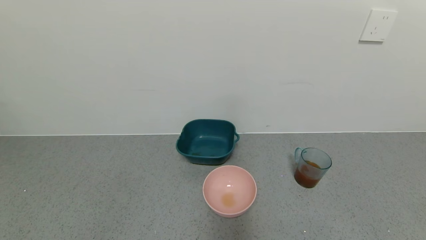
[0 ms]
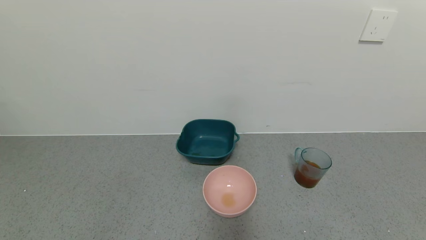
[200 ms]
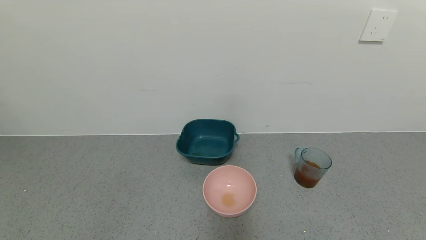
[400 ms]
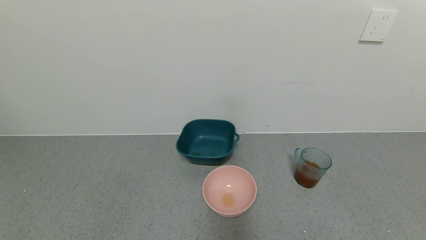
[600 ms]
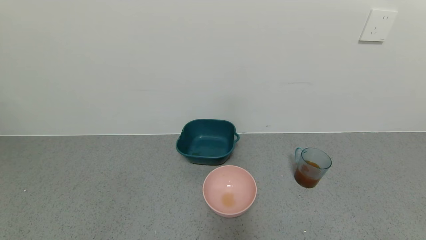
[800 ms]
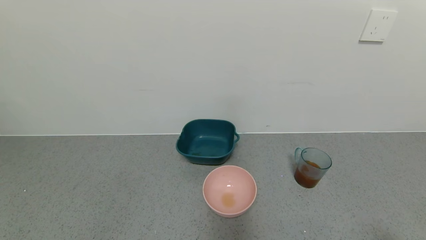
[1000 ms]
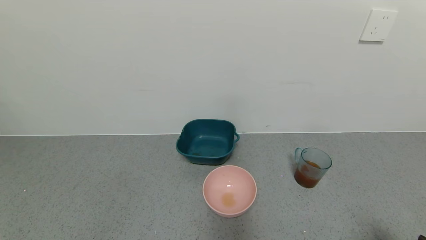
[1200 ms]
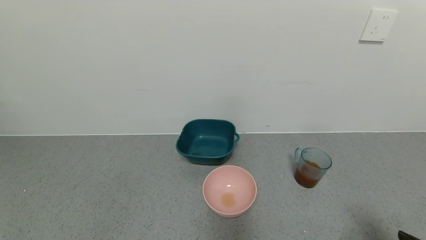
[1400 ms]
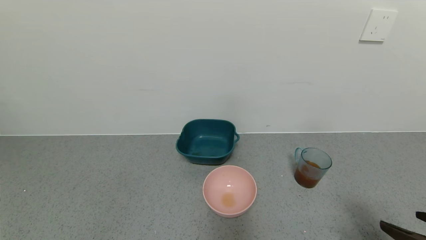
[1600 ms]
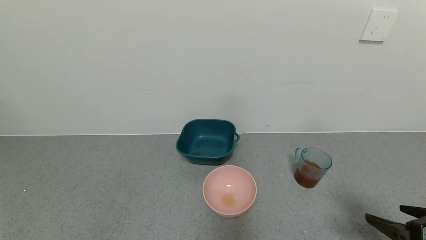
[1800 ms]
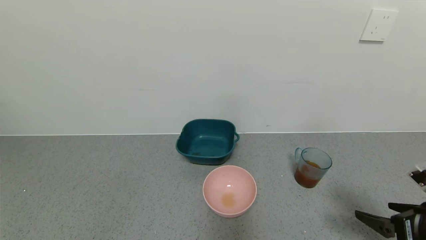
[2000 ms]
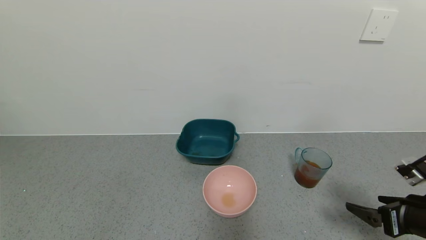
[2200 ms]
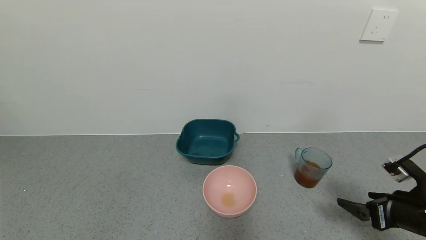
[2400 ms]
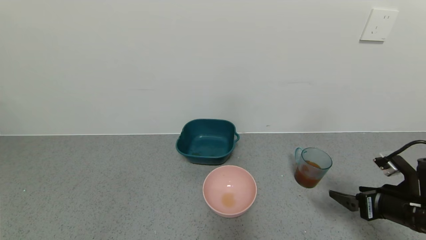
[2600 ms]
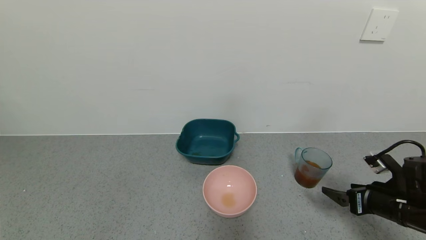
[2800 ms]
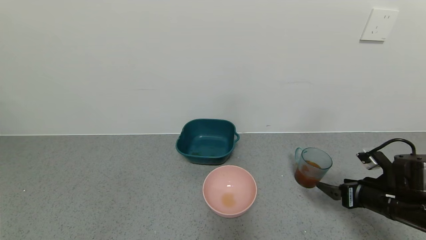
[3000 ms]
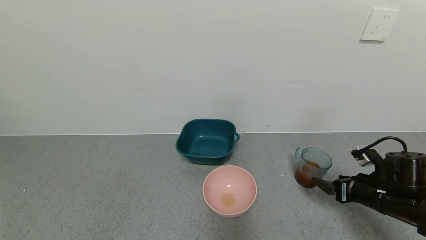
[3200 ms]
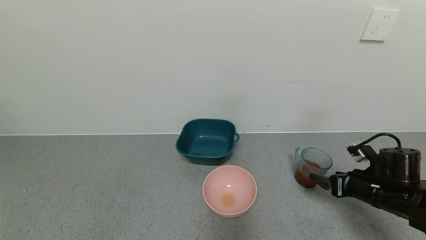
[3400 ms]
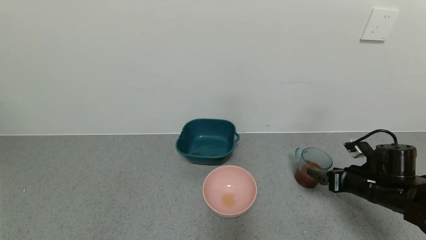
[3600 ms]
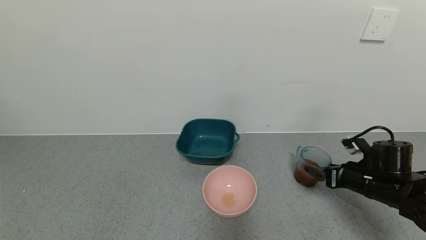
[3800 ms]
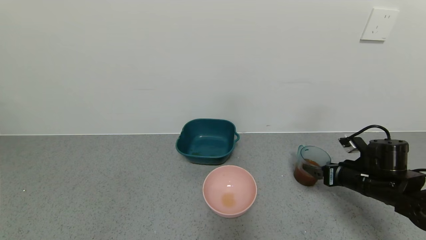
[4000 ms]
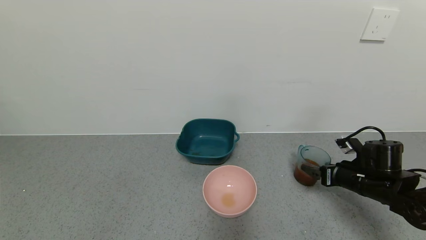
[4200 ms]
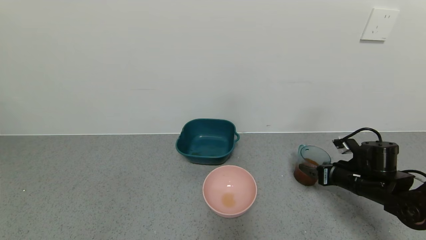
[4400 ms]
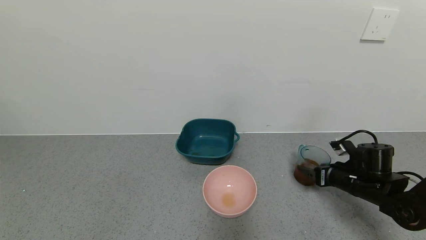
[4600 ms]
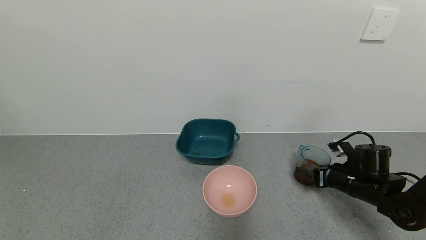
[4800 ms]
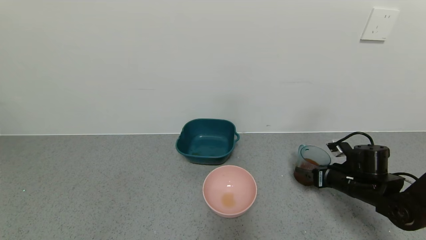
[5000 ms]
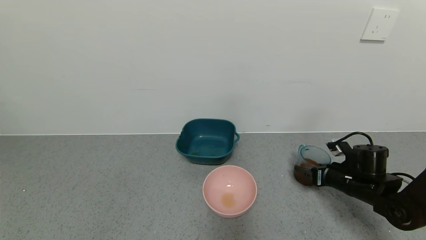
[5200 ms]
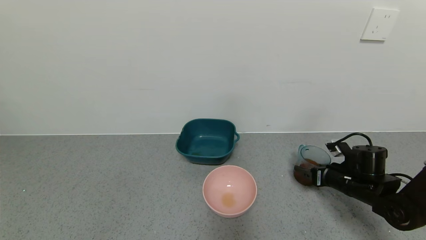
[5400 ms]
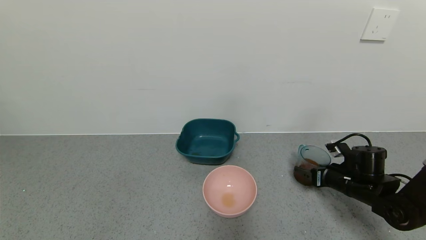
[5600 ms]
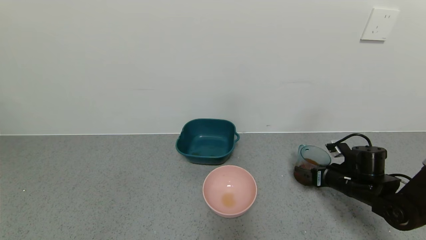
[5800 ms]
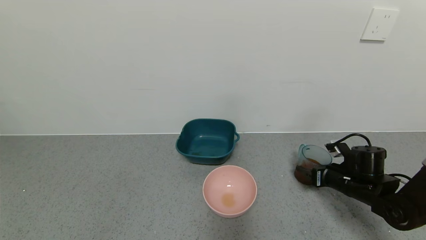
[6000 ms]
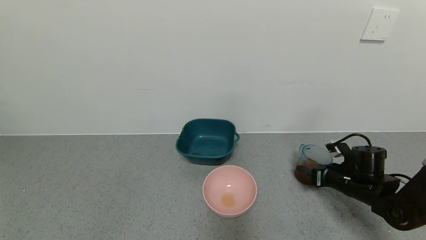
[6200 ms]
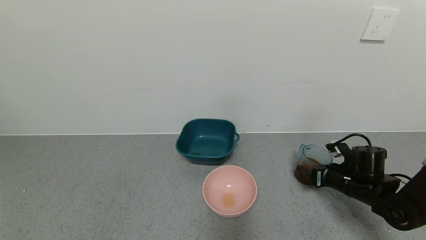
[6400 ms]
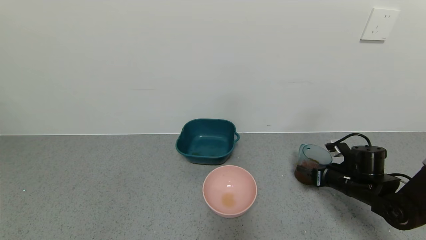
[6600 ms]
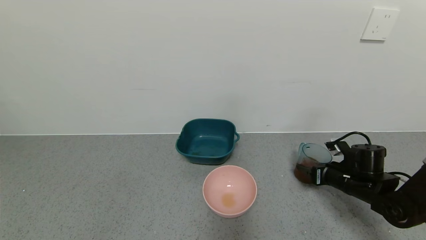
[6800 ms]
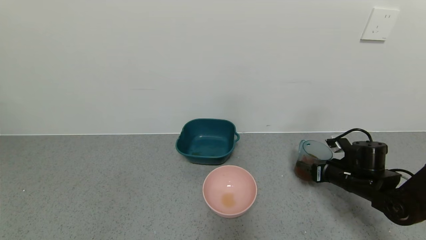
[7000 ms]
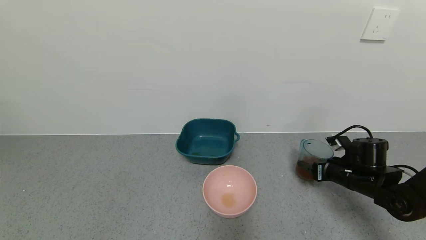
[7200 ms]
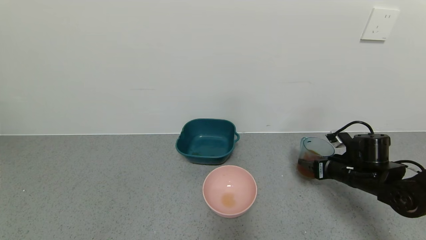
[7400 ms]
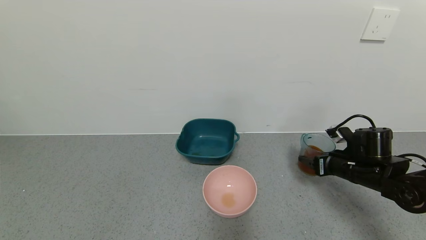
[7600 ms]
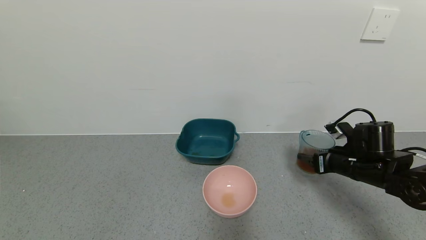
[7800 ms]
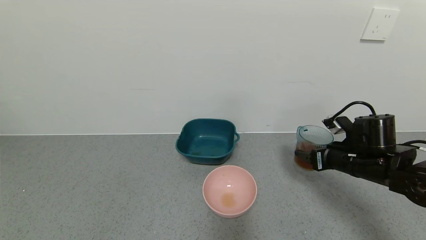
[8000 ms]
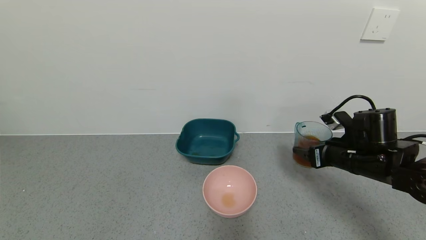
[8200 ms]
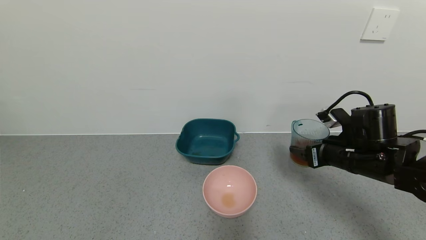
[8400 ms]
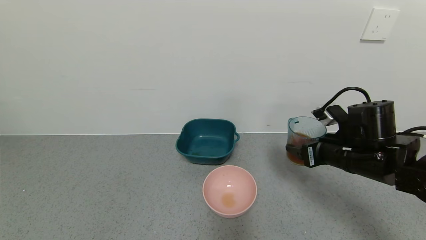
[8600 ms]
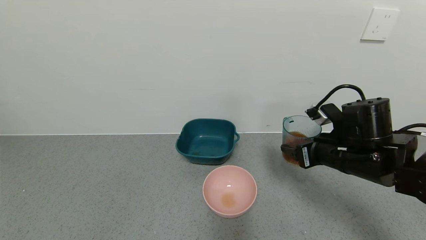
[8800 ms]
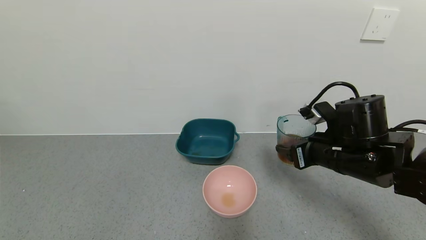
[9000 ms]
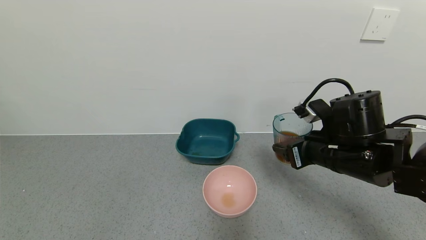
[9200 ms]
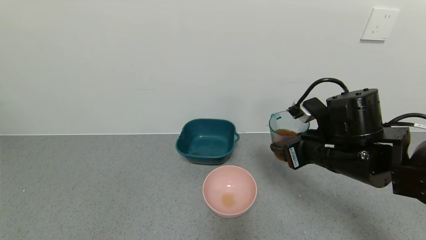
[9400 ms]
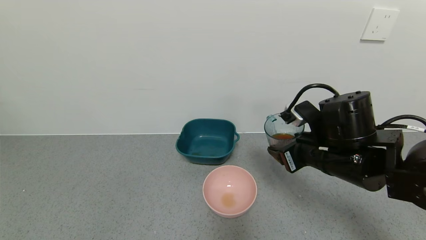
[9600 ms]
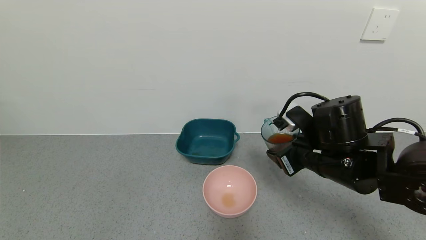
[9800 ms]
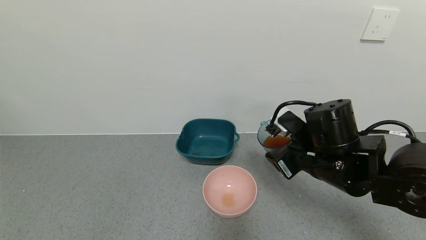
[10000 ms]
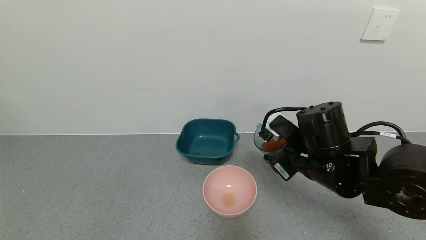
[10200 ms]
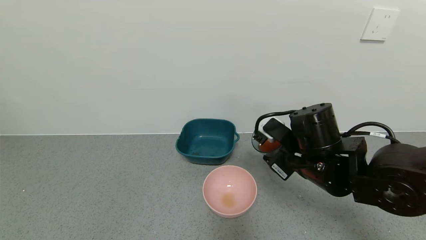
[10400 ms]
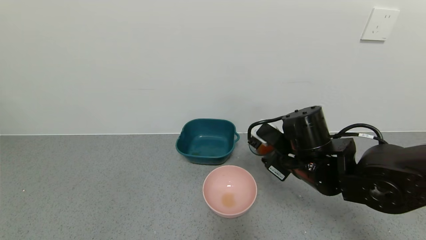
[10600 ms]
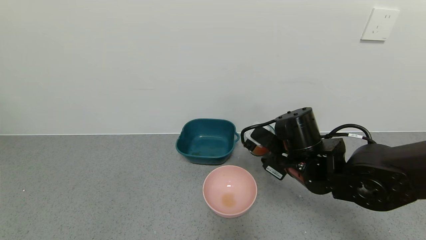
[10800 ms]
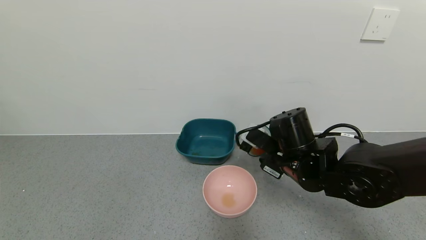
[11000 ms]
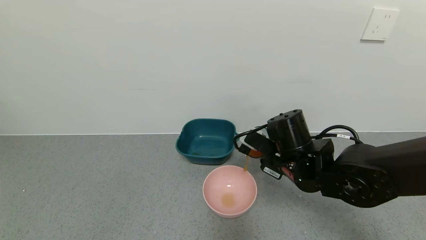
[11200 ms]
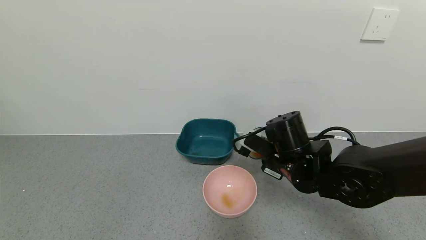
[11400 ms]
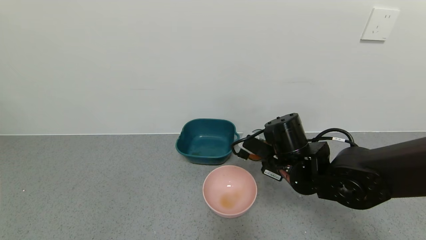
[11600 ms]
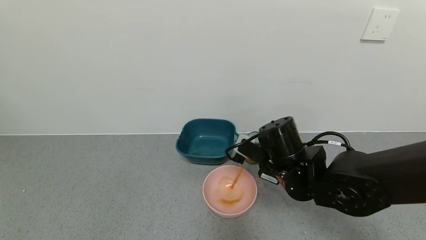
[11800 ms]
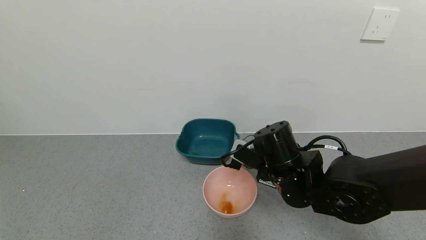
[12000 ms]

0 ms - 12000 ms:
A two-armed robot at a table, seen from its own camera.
Task of the whole recording: use a gripper to pick up the cup and pour the liquid into a bowl or tray.
Step, 0 ms - 7600 ms: Pick up blue cup filled with tea with right gripper.
0 ms - 1600 ms: Neither gripper changes place.
1600 ms - 3000 ms: The right gripper moves forward, some 10 cm.
3000 ms - 4400 ms: The right gripper is displaced forward by roughly 5 cm.
4400 ms - 6000 ms: The right gripper closes its fingers.
6000 ms - 7600 ms: The right gripper goes approximately 5 cm upward.
7600 ms - 9000 ms: The right gripper goes about 15 cm to the left and upward.
9000 ms - 10400 ms: The right gripper goes about 5 cm to the left.
10400 ms - 12000 ms: The right gripper ends up some 5 cm from where it was.

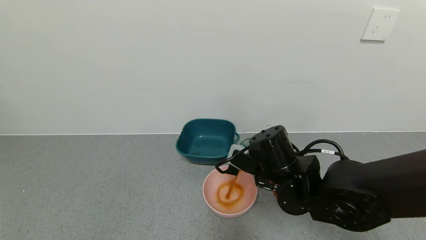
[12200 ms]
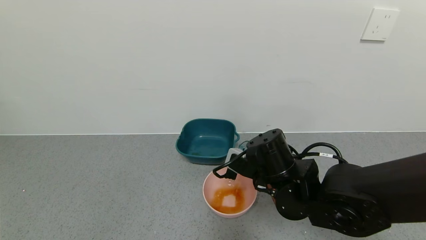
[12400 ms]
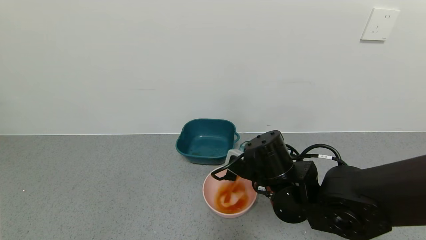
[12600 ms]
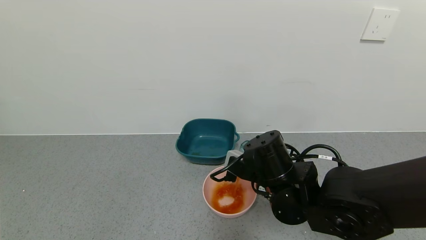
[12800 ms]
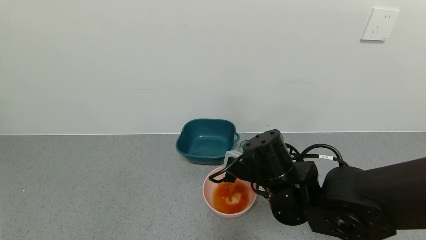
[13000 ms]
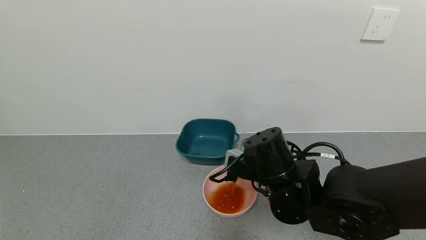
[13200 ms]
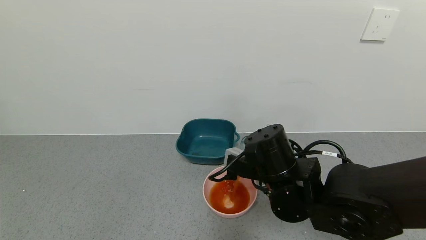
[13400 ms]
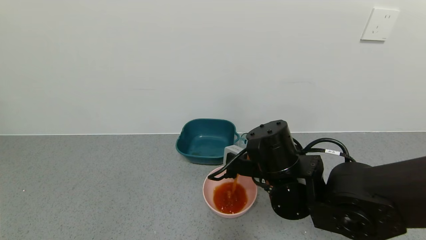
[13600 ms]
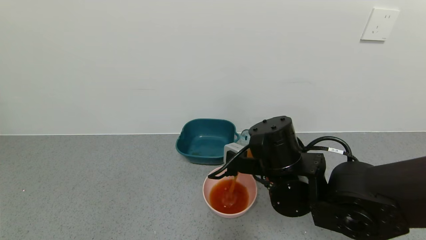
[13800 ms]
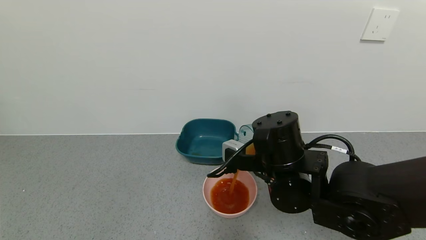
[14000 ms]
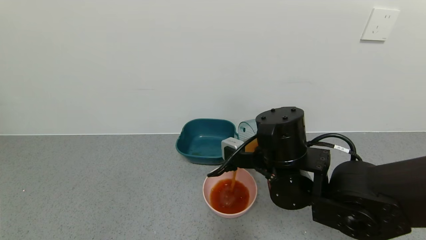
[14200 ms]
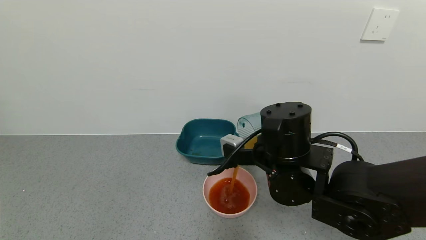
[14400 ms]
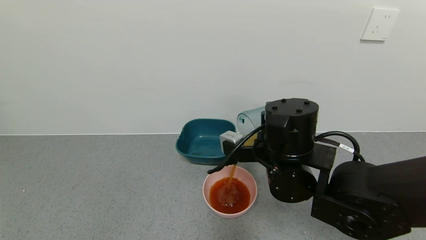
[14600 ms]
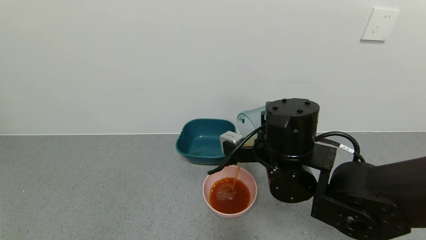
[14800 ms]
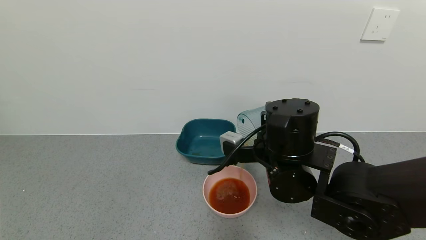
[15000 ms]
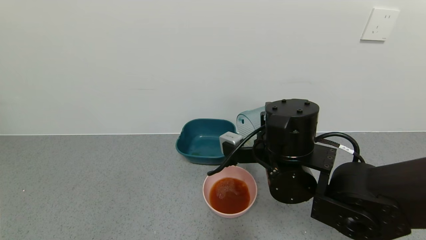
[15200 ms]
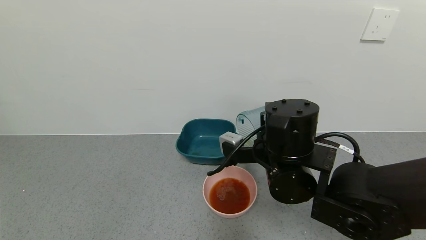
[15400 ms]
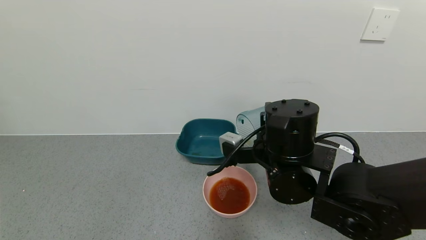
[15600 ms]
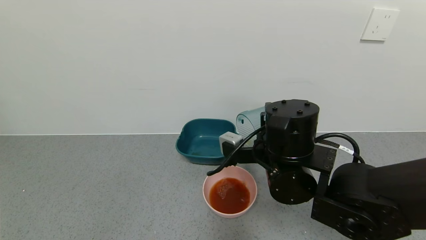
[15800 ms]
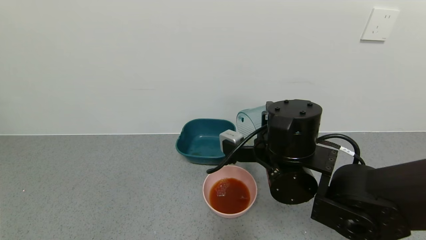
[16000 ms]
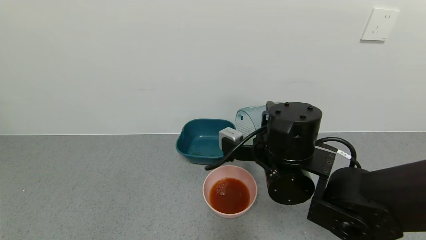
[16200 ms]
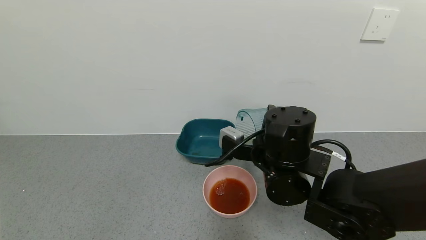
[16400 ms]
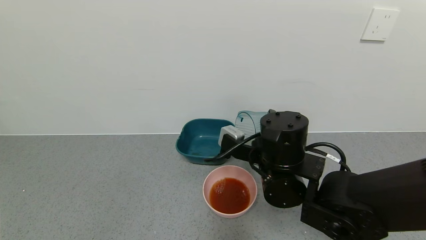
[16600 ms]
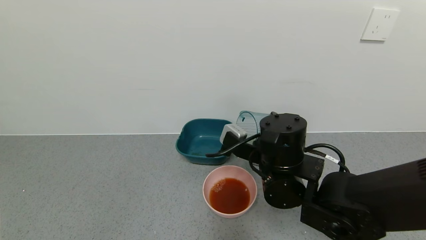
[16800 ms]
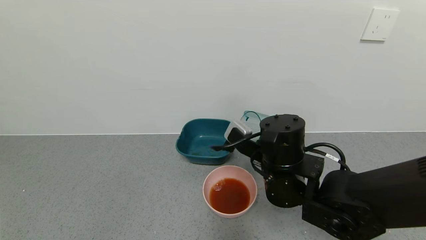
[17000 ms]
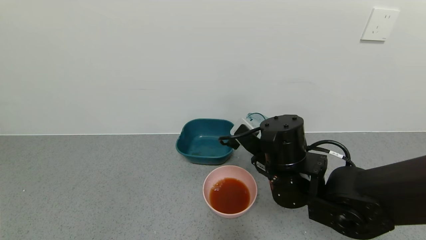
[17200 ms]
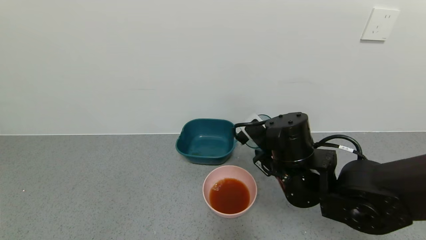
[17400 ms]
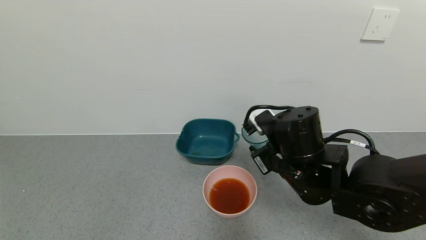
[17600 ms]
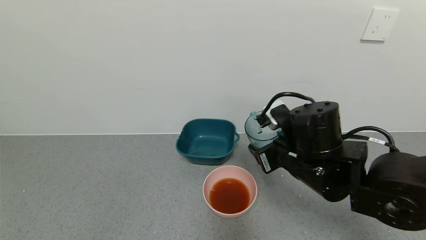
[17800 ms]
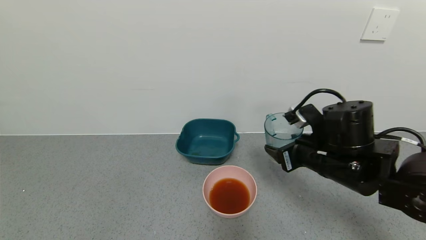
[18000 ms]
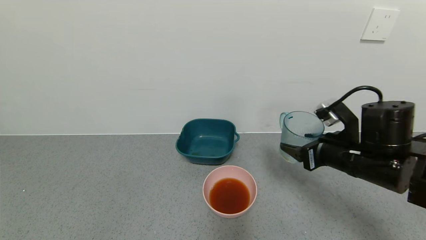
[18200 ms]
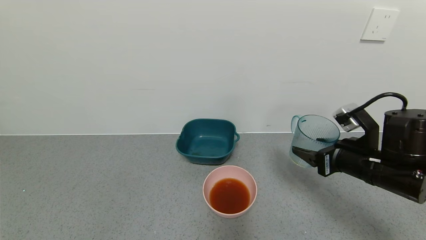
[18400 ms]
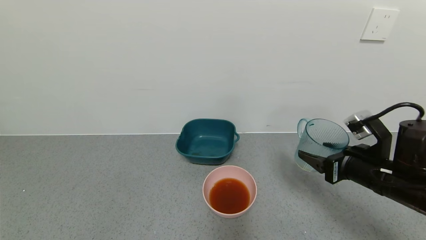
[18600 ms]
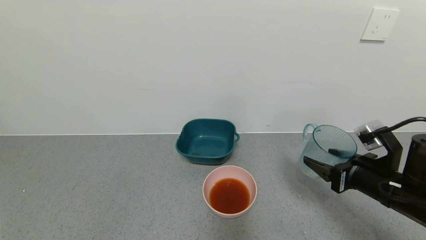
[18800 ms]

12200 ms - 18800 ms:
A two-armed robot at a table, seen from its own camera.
Task of the whole recording: use a gripper to pick up the cup and pour the liquid into a bowl or tray.
Step, 12200 ms - 17400 ms: Pour the tea into the pink bowl with right gripper.
12200 ms - 13800 ms: There are only small adjustments of the grippers.
13800 ms - 15400 ms: The grippers stay close to where they were, moving slightly.
17200 ms - 18800 ms: The right gripper heads to the right, covering some 20 cm.
